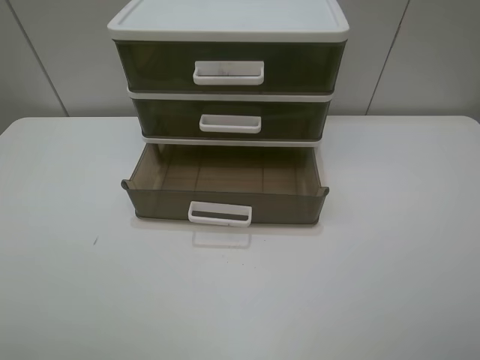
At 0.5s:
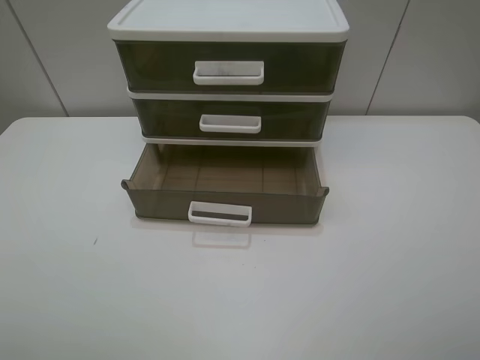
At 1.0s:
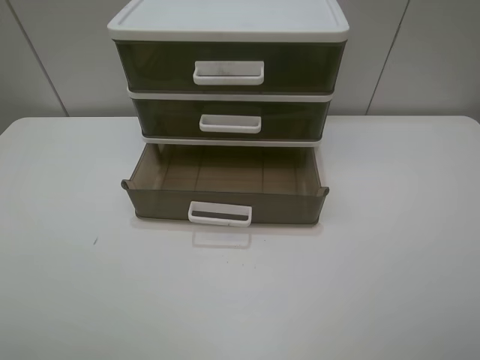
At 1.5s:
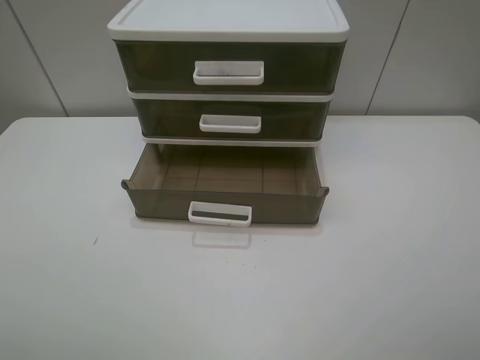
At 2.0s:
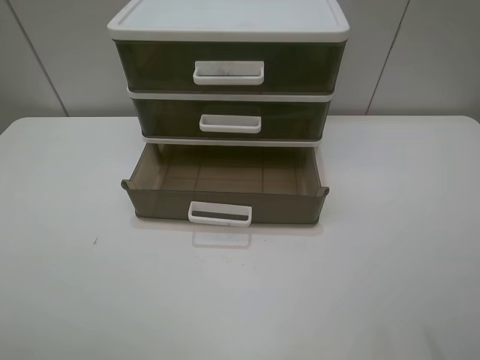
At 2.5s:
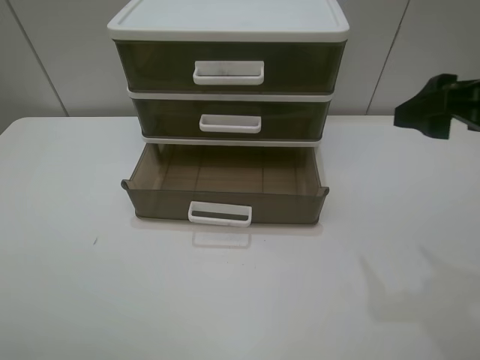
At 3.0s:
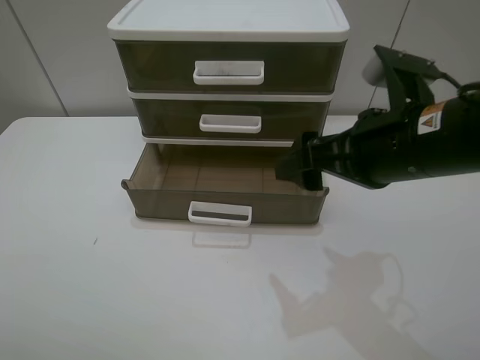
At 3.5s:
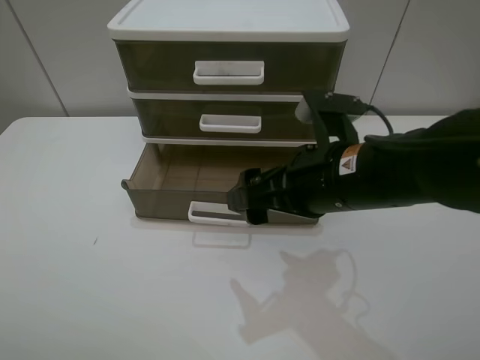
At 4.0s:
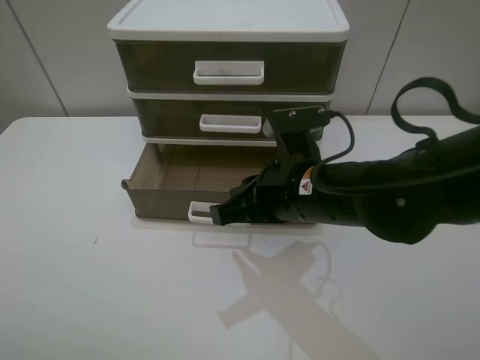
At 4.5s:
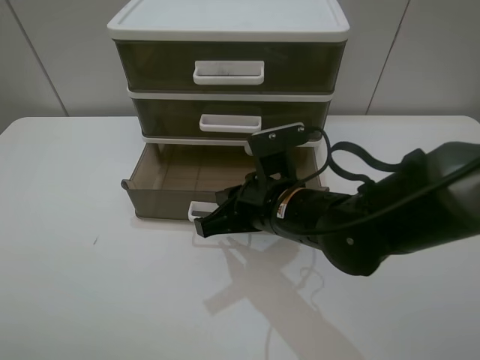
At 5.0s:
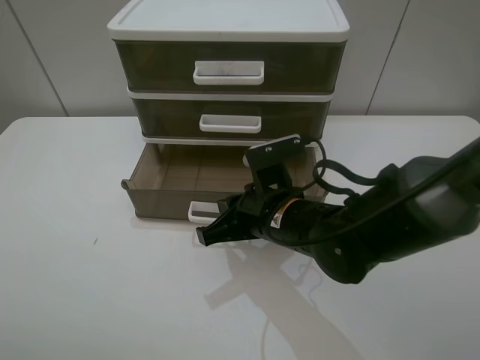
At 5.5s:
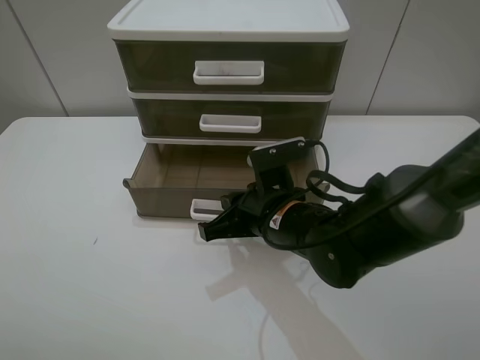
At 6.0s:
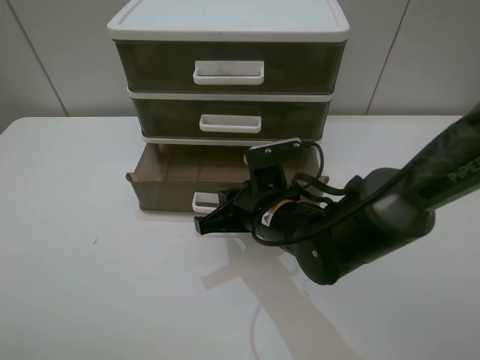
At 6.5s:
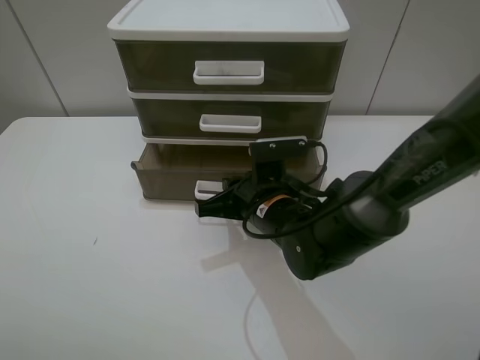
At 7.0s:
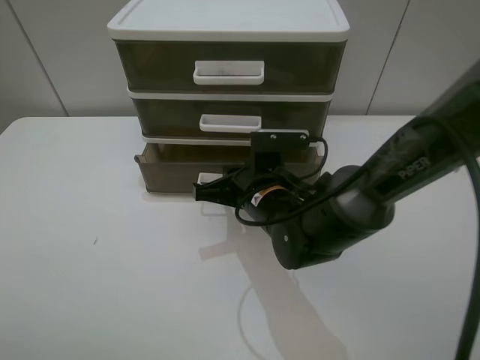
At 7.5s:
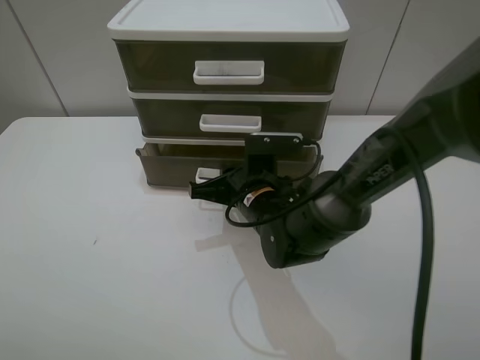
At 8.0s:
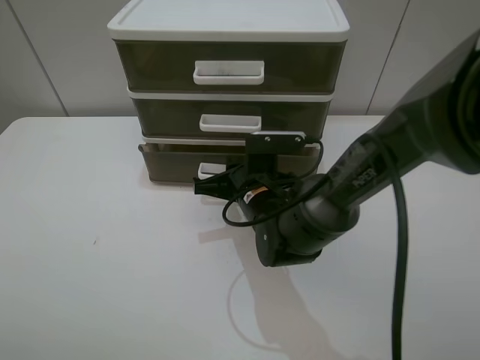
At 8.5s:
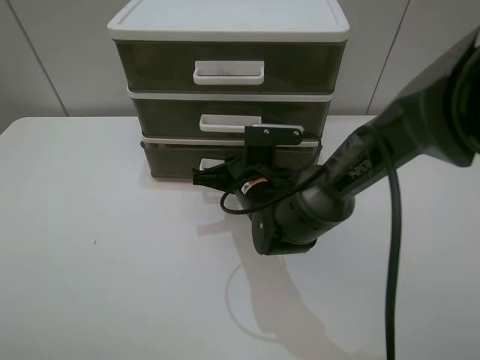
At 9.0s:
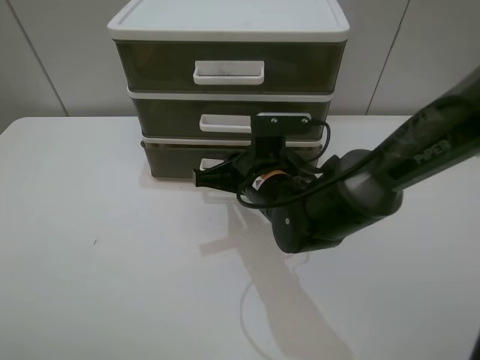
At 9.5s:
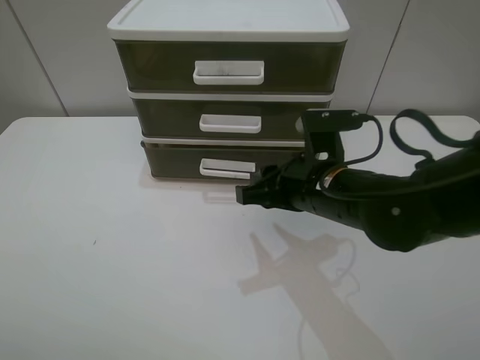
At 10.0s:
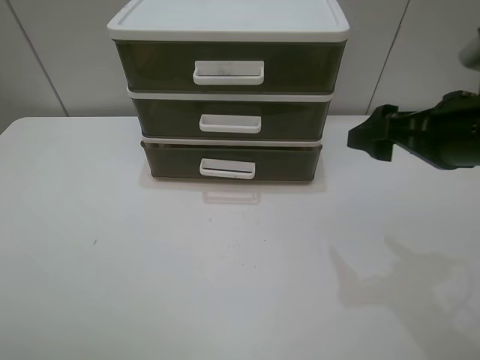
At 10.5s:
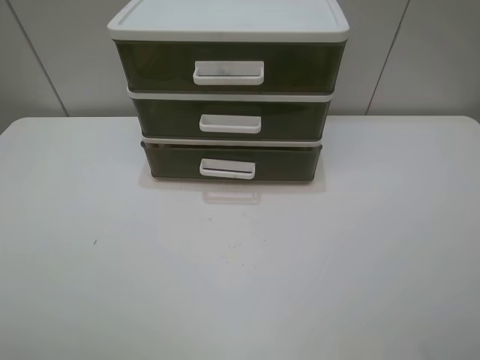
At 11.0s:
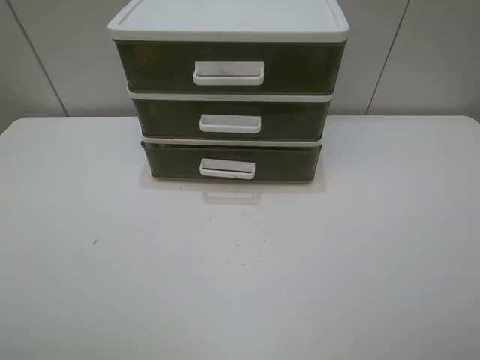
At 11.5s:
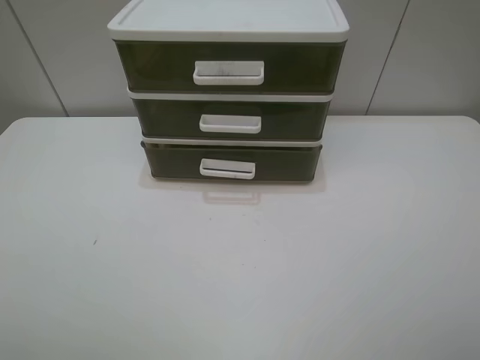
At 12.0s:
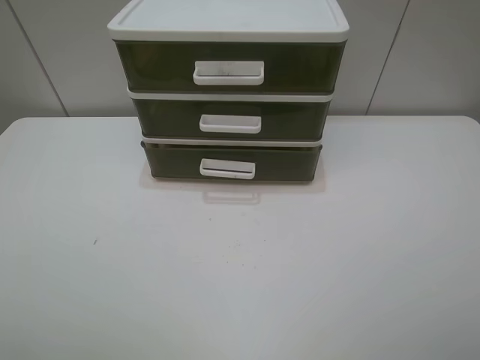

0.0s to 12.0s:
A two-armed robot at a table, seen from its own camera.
Task of the whole recording: close the bottom drawer.
Step, 0.0s to 4.0s: Use the right gripper to contact the bottom layer of the storage cabinet.
Step, 4.5s to 8.5s: Push the bottom drawer closed.
2.0s to 4.0s: The right gripper shifts about 30 cm to the left, downward and forward, and closes up.
4.0s to 6.0s: The right gripper goes some 5 cm downward.
6.0s to 8.0s: The right gripper moves about 5 cm.
8.0s to 10.0s: The right gripper heads to the right and upward, covering about 30 cm, and opens.
10.0s to 12.0s: The right gripper goes some 20 cm backward.
